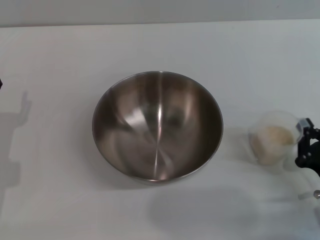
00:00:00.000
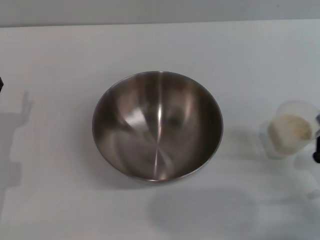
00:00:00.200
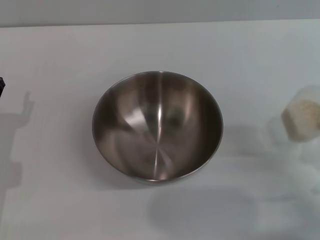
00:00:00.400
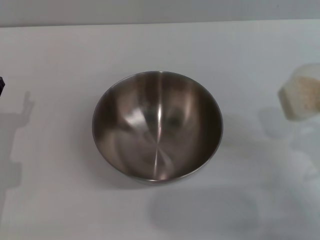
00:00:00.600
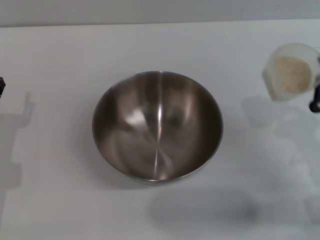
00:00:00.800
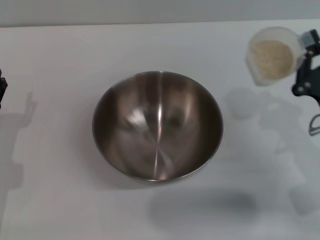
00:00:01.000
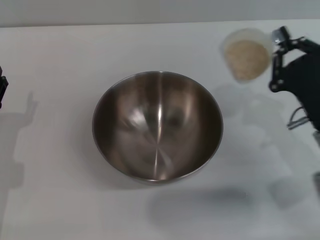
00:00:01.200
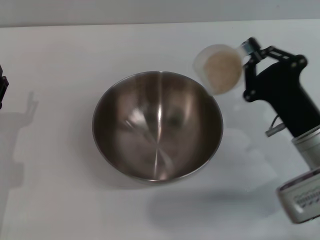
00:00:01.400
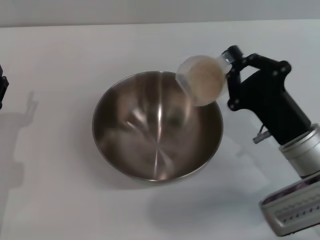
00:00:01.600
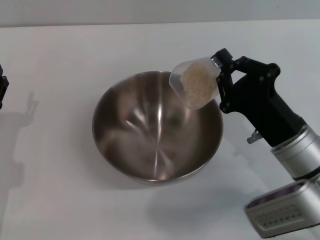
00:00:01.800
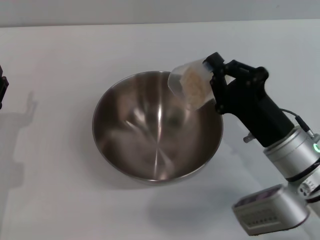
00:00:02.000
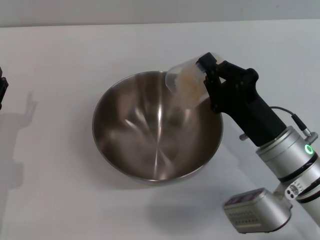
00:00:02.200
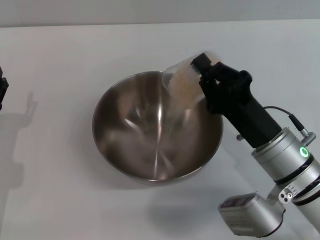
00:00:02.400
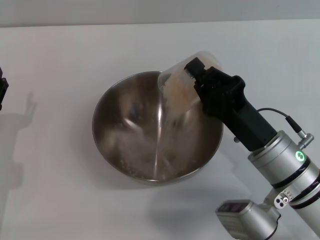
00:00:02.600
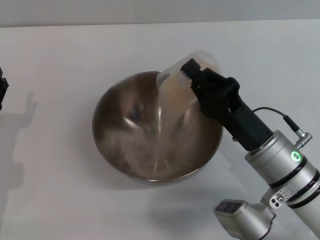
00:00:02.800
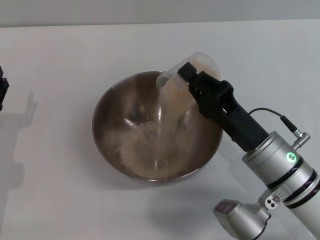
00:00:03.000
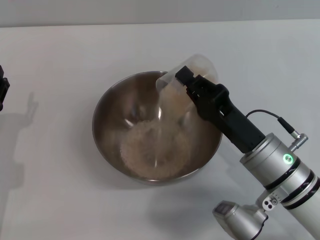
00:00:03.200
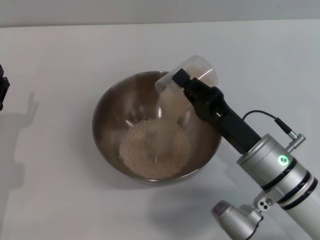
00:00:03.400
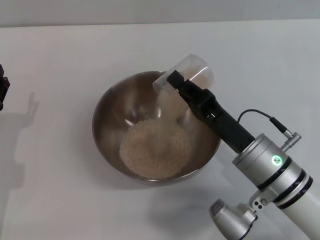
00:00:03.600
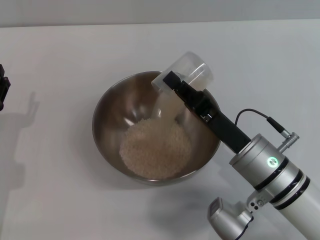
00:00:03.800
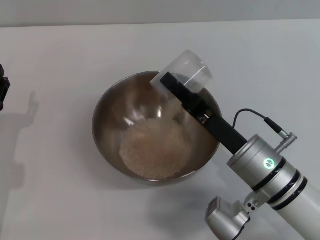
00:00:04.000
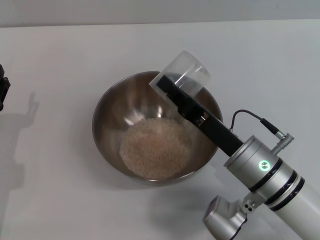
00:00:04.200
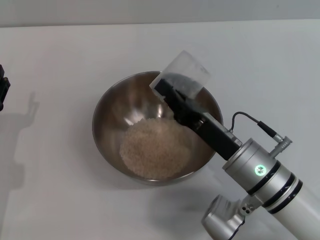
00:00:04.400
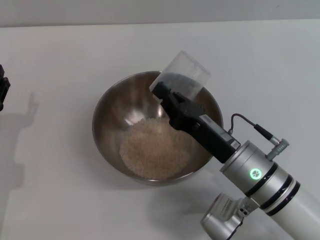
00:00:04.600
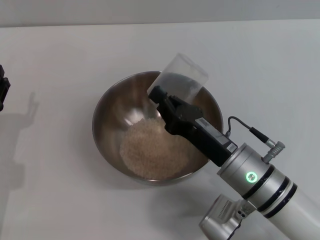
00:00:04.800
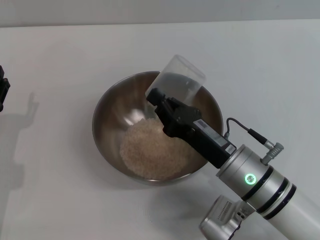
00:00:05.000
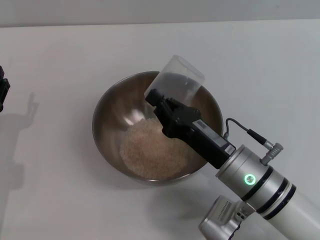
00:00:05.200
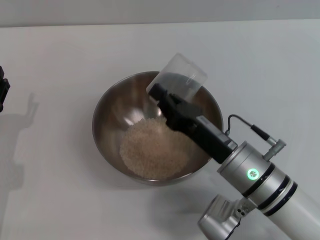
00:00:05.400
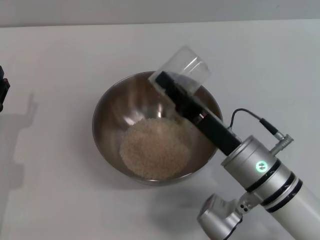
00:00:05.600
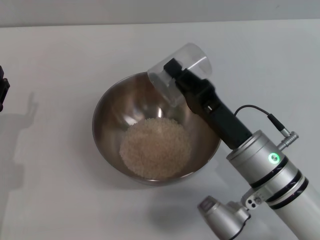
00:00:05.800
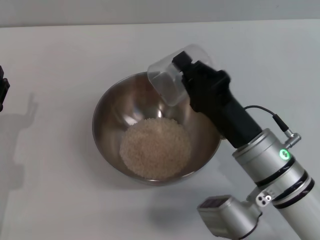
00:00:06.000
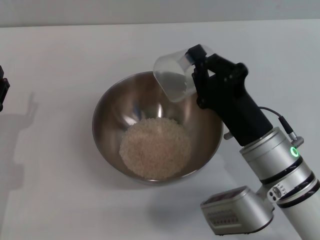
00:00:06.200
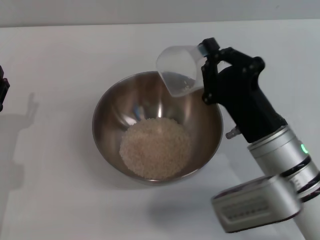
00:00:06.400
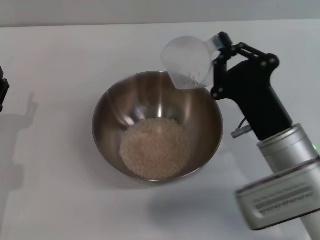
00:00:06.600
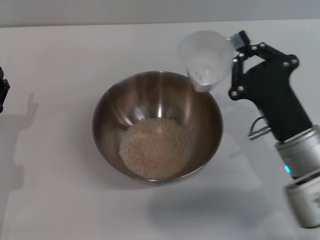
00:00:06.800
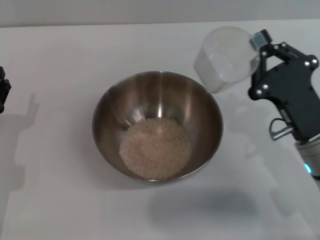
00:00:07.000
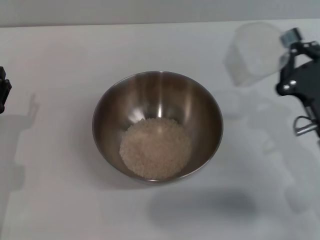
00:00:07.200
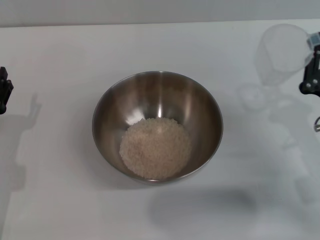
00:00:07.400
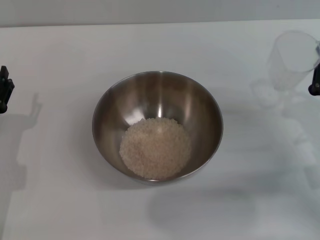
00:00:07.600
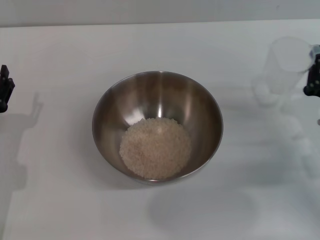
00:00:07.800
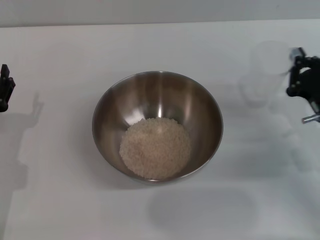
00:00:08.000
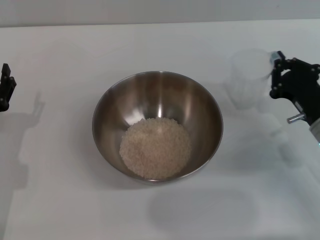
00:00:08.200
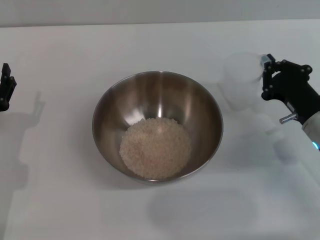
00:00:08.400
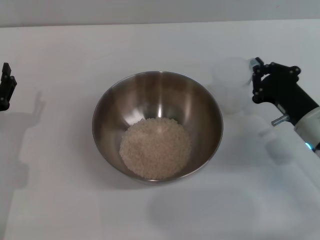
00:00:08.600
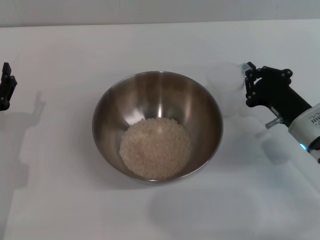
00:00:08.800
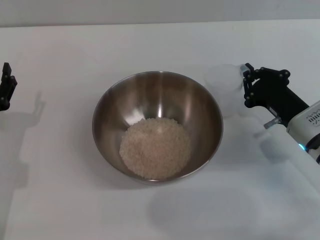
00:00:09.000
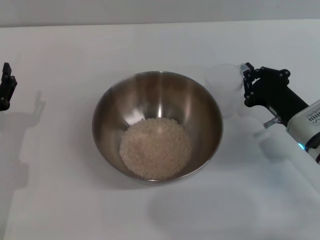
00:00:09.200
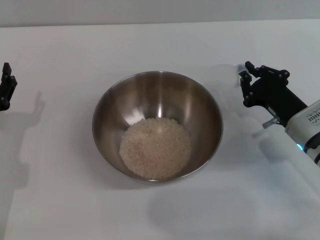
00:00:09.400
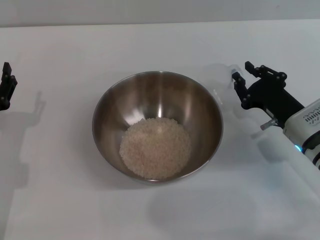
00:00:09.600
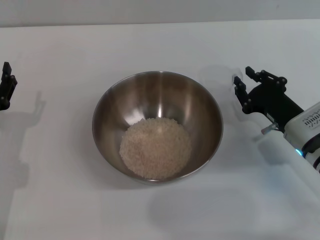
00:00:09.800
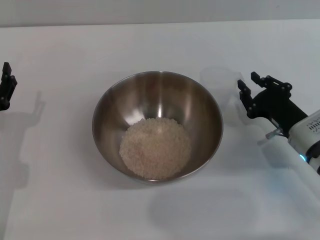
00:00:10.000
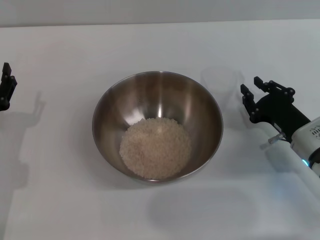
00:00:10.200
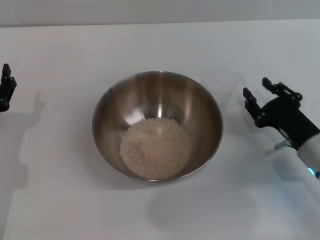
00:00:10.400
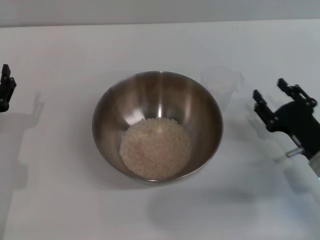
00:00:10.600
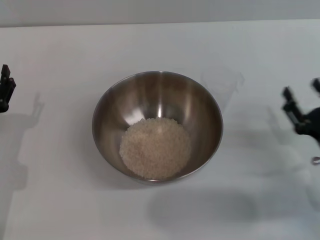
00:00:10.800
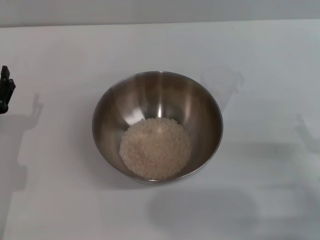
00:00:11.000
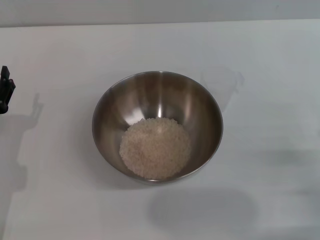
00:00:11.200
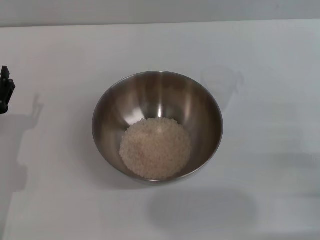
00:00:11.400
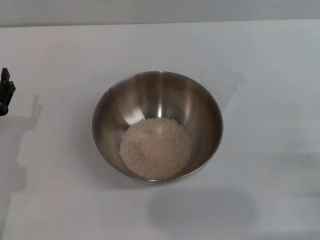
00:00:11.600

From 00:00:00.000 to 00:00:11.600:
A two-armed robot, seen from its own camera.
Task of the whole recording: Place the bowl in the middle of the table with one hand and pour the rice from the grain cup into it with the other hand.
Step, from 00:00:00.600 to 00:00:04.200: Pour the rice from the cup into the bowl with the right gripper.
Step, from 00:00:04.600 to 00:00:10.000: Place the cup on the table with the right gripper.
From 00:00:00.000 to 00:00:01.400: The right gripper goes approximately 10 cm forward, upward and to the left.
From 00:00:01.400 to 00:00:02.800: The right gripper goes about 5 cm to the left.
From 00:00:05.800 to 00:00:07.200: The right gripper heads to the right, covering some 10 cm.
From 00:00:07.200 to 00:00:08.800: The right gripper heads forward, covering roughly 5 cm.
From 00:00:08.800 to 00:00:10.200: The right gripper opens up.
From 00:00:10.200 to 00:00:11.600: The right gripper moves backward and to the right, some 15 cm, and opens.

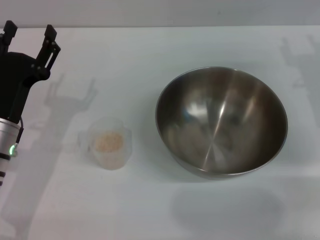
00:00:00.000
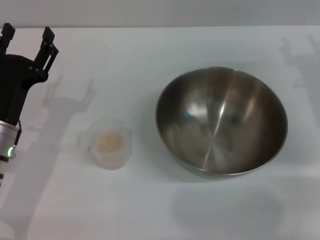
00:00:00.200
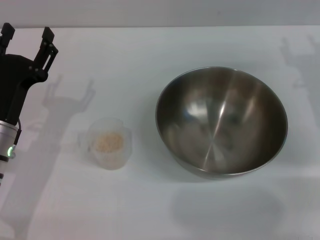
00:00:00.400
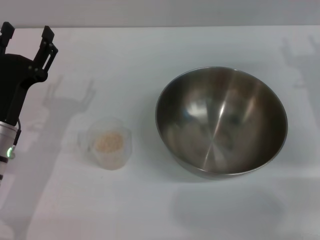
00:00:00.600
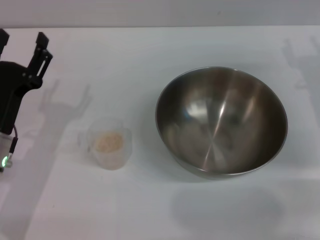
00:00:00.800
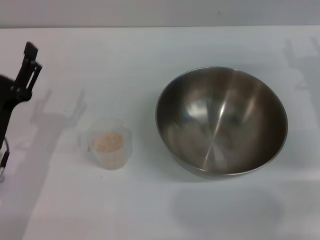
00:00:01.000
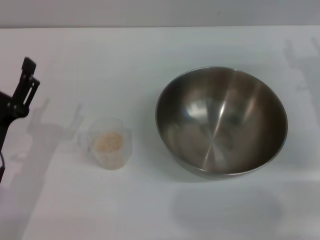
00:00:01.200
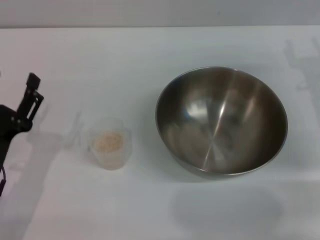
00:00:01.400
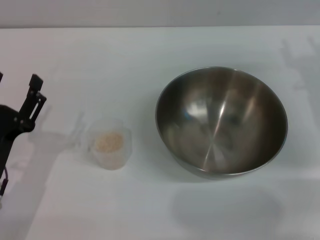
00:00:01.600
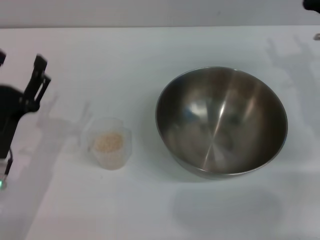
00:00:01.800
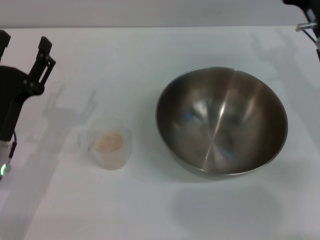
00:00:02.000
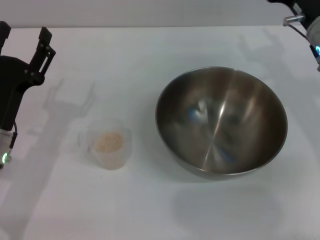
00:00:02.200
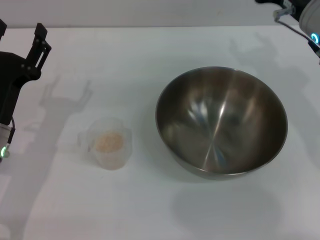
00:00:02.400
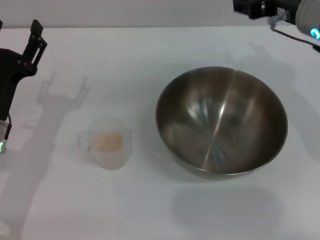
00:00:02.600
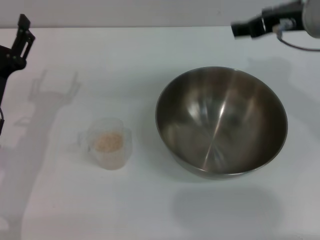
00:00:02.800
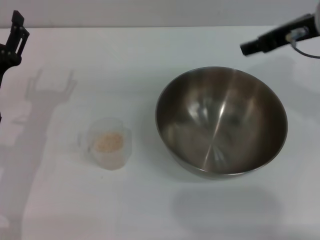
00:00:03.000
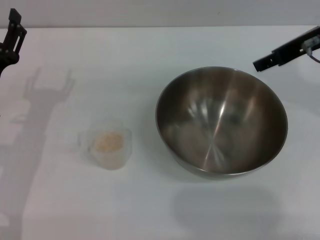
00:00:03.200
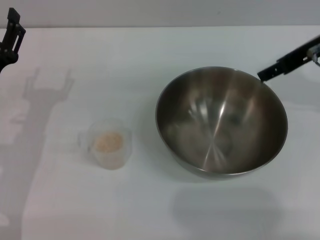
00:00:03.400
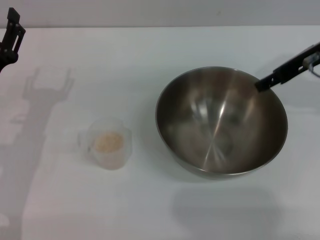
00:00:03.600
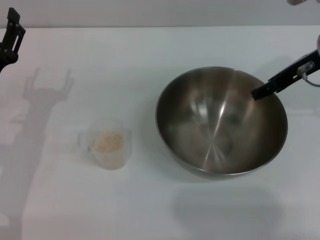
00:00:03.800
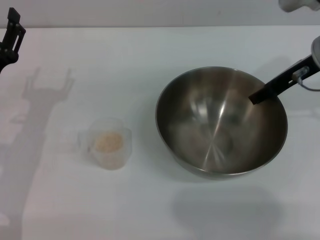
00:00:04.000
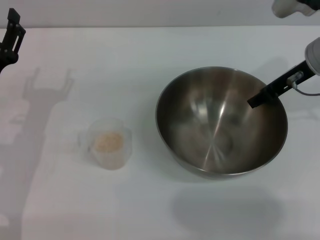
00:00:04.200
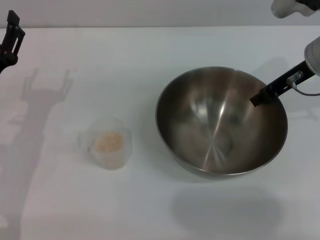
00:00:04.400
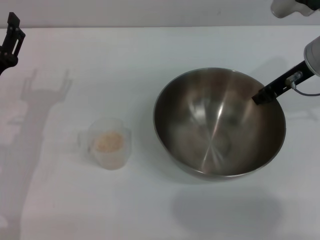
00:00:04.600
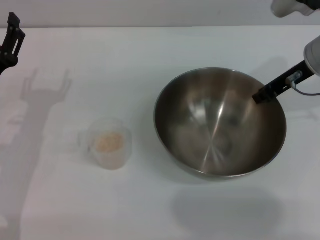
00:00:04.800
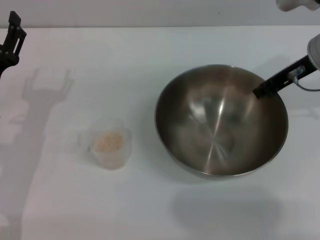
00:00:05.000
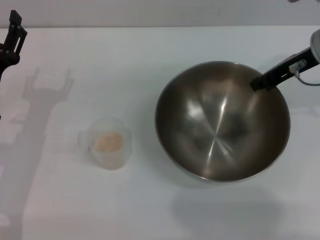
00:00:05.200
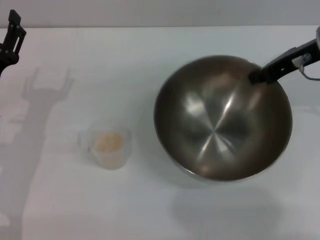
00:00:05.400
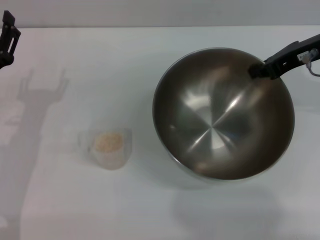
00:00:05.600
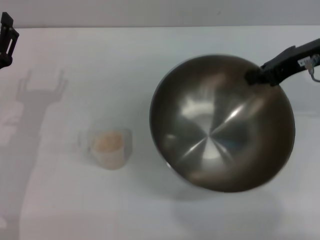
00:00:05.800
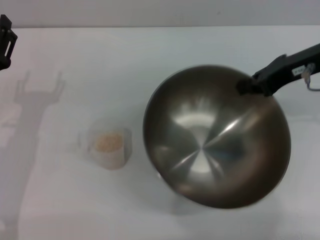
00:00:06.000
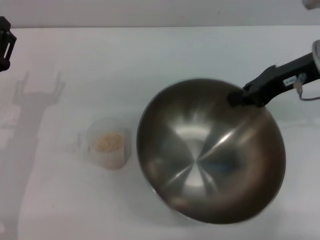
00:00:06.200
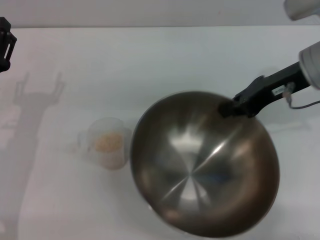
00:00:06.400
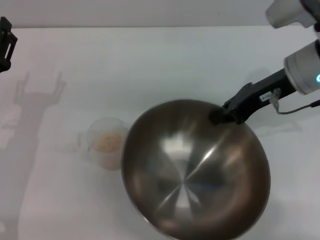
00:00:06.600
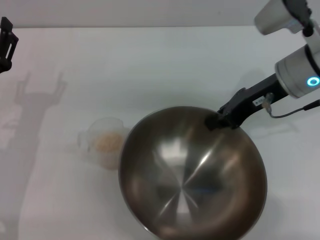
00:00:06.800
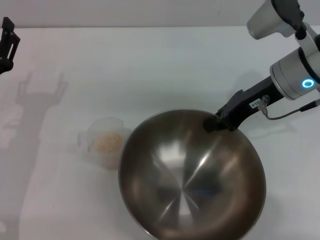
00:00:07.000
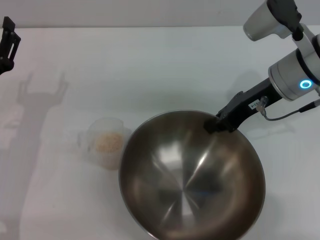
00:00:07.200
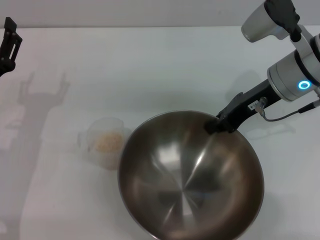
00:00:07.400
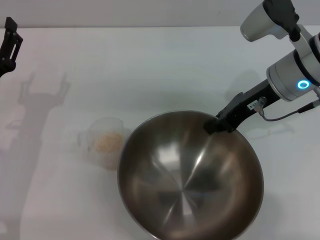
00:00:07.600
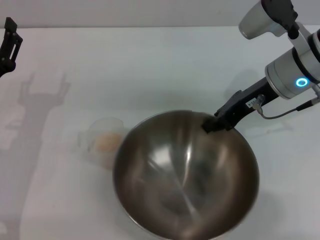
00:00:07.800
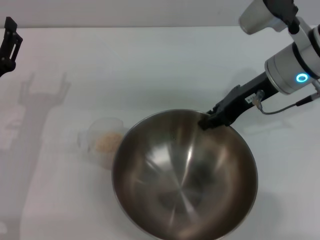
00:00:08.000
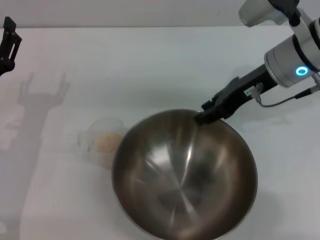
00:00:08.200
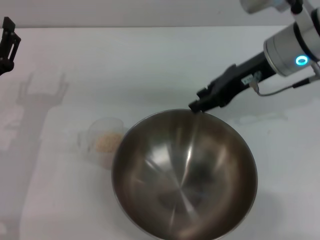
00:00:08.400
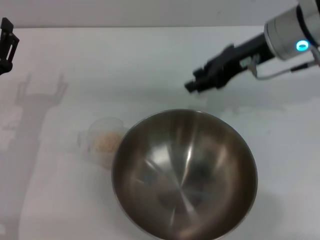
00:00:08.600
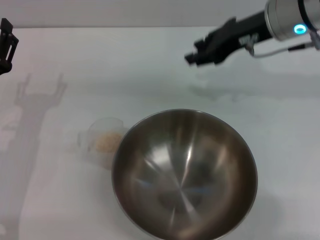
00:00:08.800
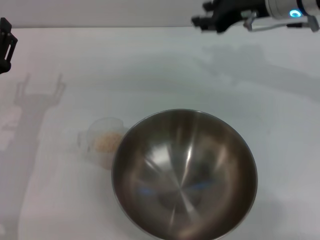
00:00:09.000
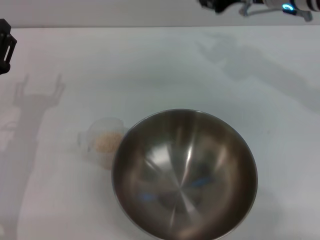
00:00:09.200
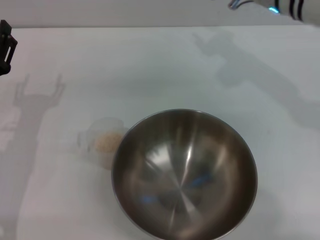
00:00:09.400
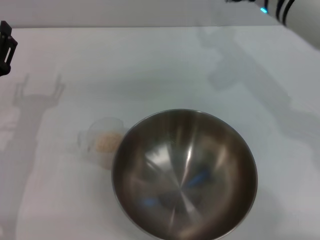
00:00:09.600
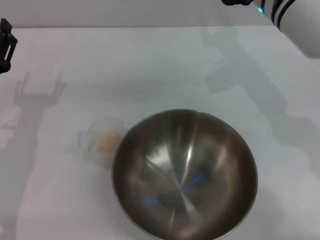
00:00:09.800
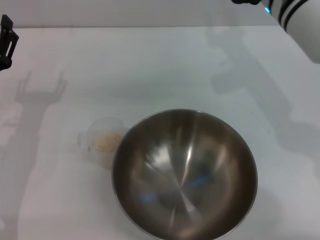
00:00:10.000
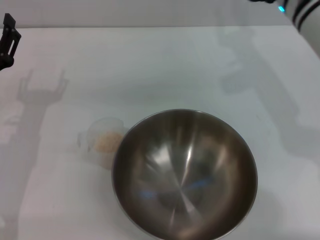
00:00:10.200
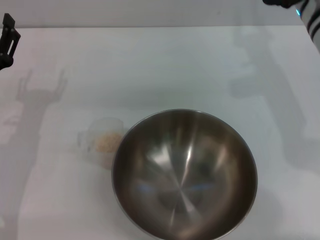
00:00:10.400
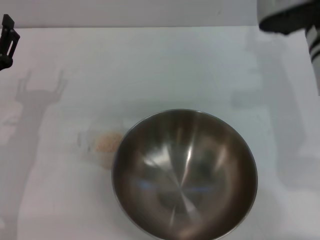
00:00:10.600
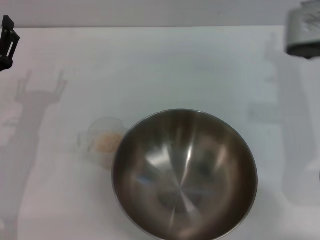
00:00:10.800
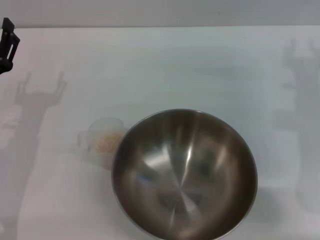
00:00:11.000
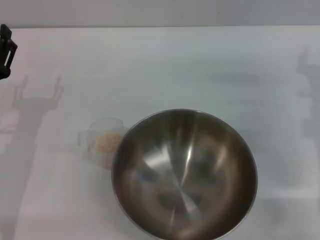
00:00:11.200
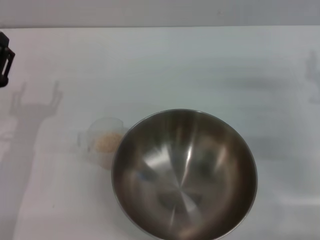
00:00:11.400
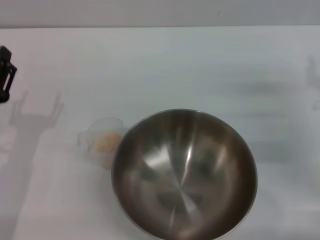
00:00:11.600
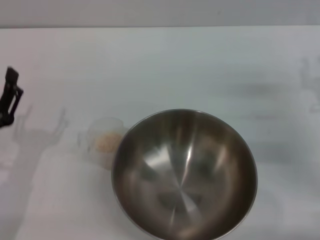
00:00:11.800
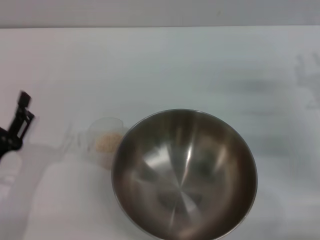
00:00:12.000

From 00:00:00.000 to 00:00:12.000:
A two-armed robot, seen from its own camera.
Task of the whole recording: Place the bowl in the middle of the table with one hand and pour the rice from the grain cup into it with the other hand.
Step, from 00:00:00.000 to 00:00:05.400: Pick up the bowl with the right gripper.
Step, from 00:00:05.600 to 00:00:08.400: Place the bowl in the center of view with the right gripper.
From 00:00:00.000 to 00:00:01.600: The left gripper shifts some 5 cm backward.
From 00:00:01.600 to 00:00:03.000: The left gripper travels forward by some 10 cm; the right gripper heads upward and to the left, covering some 15 cm.
From 00:00:03.000 to 00:00:04.400: The right gripper goes roughly 5 cm downward, and closes its fingers.
From 00:00:04.400 to 00:00:06.000: The right gripper closes its fingers.
From 00:00:06.000 to 00:00:07.600: The right gripper travels to the left by about 5 cm.
From 00:00:07.600 to 00:00:09.000: The right gripper goes approximately 10 cm upward and forward, and opens its fingers.
From 00:00:10.400 to 00:00:12.000: The right gripper shifts some 20 cm to the right, downward and backward; the left gripper shifts approximately 10 cm backward.
